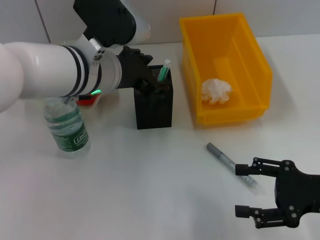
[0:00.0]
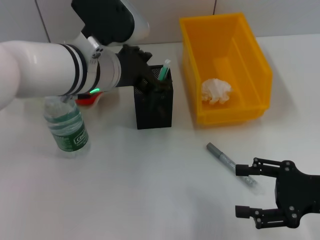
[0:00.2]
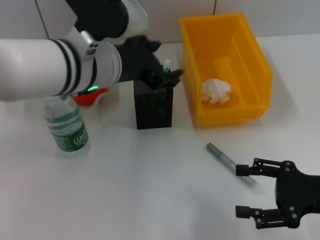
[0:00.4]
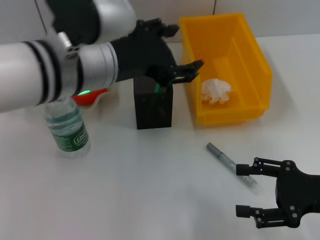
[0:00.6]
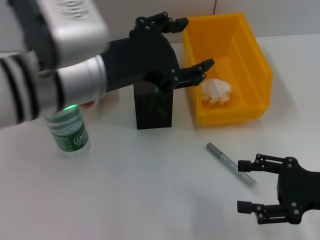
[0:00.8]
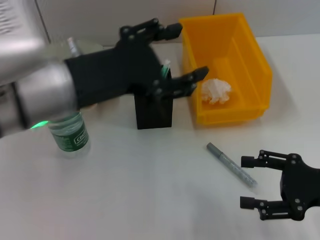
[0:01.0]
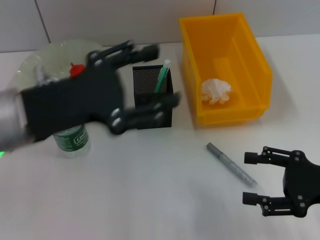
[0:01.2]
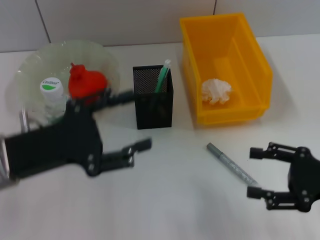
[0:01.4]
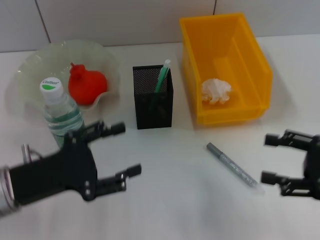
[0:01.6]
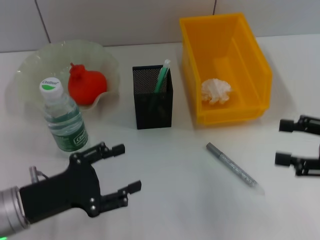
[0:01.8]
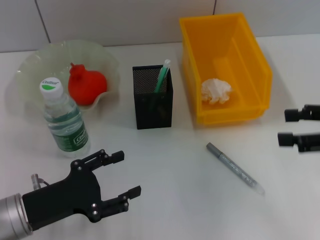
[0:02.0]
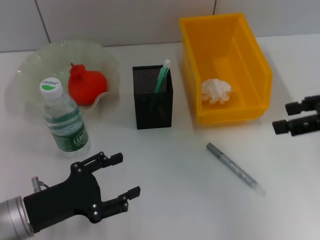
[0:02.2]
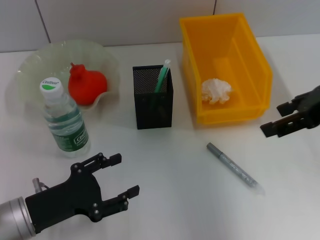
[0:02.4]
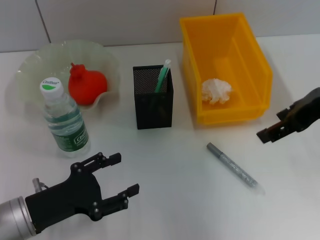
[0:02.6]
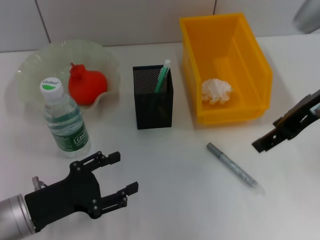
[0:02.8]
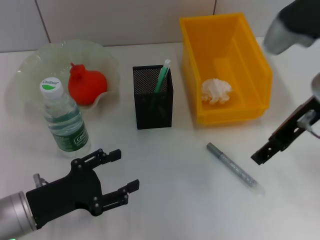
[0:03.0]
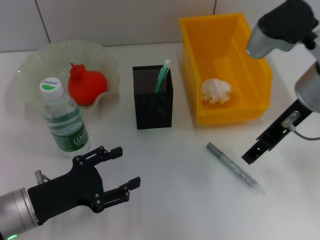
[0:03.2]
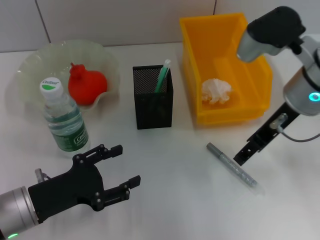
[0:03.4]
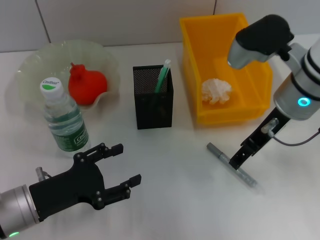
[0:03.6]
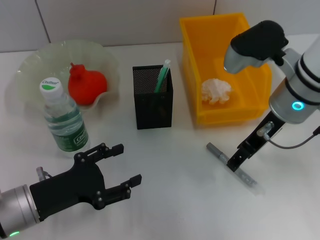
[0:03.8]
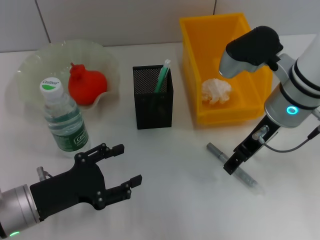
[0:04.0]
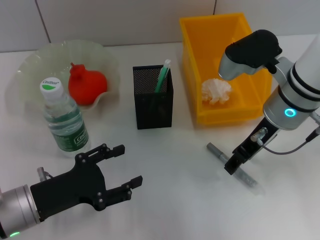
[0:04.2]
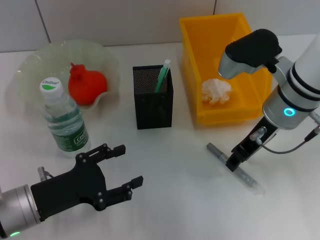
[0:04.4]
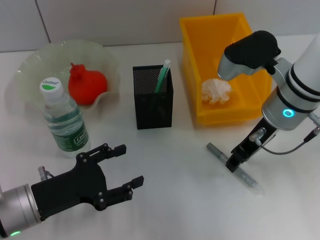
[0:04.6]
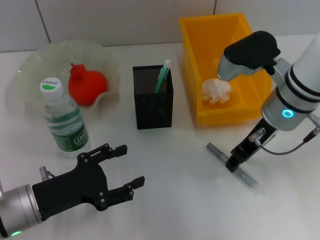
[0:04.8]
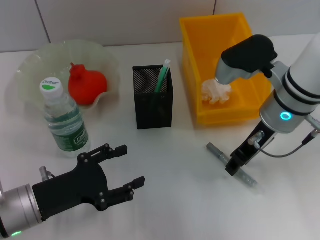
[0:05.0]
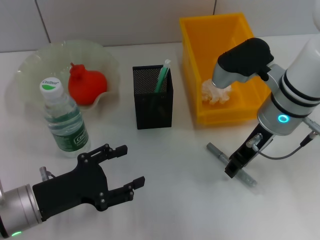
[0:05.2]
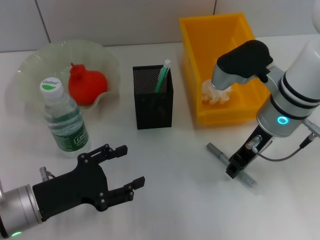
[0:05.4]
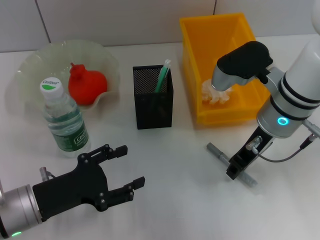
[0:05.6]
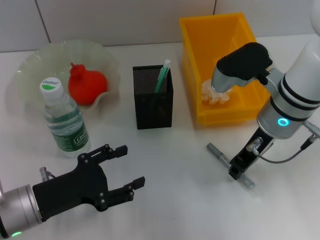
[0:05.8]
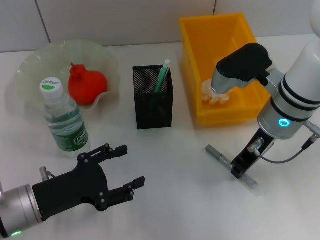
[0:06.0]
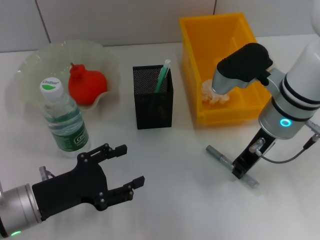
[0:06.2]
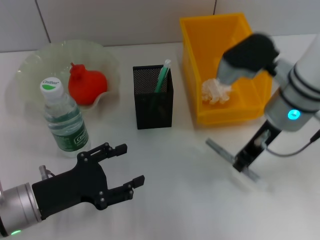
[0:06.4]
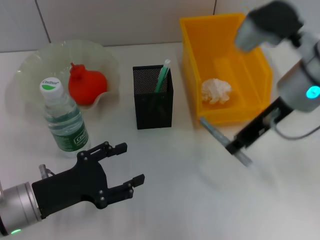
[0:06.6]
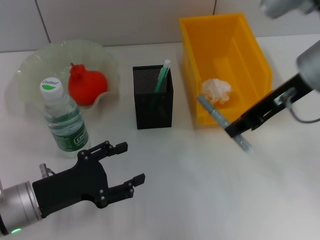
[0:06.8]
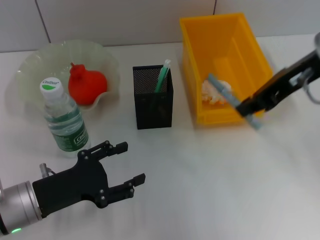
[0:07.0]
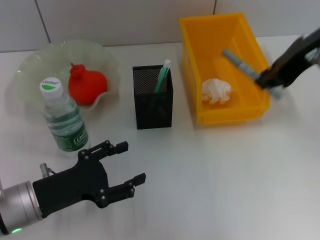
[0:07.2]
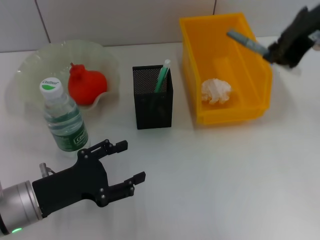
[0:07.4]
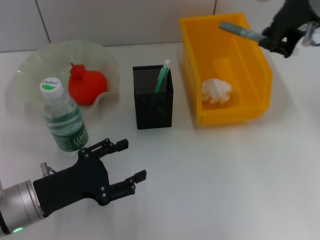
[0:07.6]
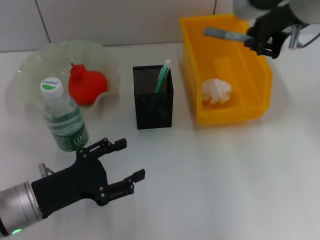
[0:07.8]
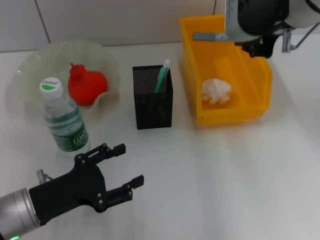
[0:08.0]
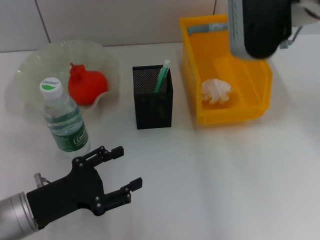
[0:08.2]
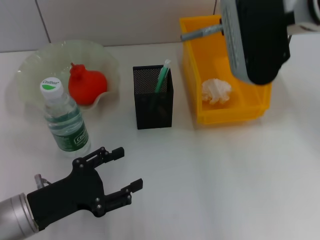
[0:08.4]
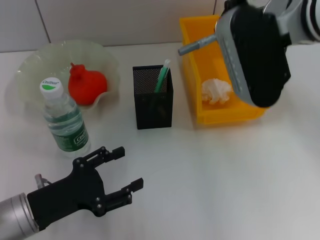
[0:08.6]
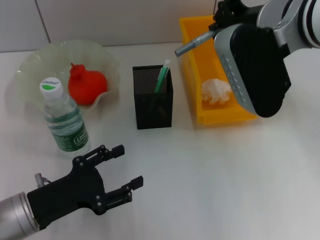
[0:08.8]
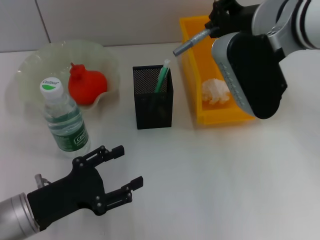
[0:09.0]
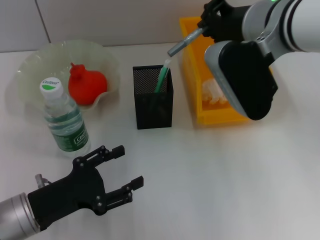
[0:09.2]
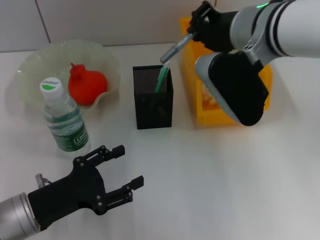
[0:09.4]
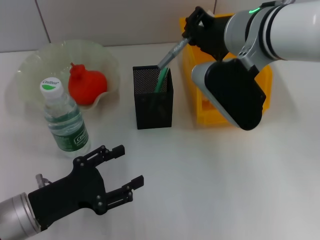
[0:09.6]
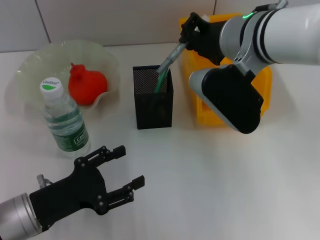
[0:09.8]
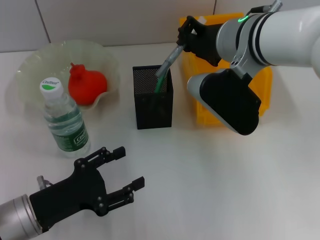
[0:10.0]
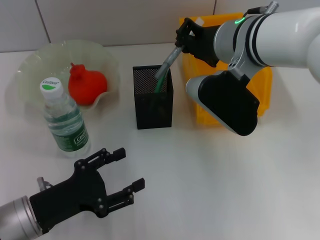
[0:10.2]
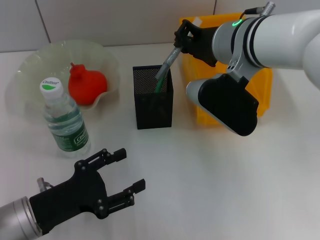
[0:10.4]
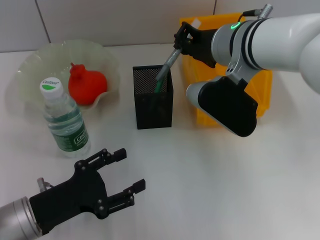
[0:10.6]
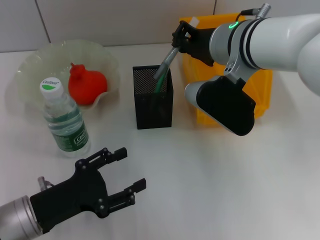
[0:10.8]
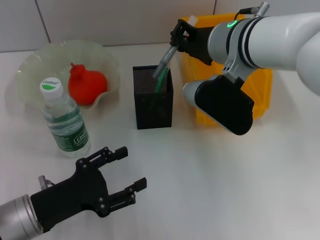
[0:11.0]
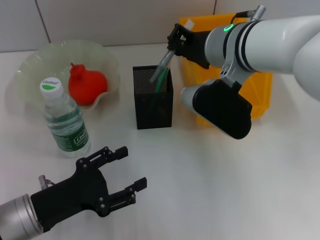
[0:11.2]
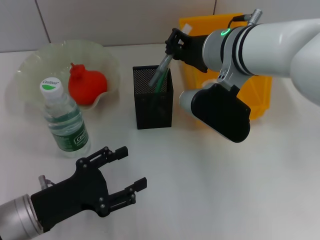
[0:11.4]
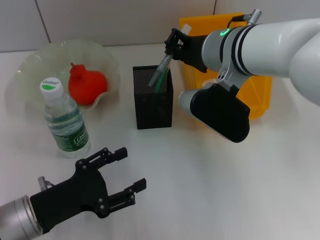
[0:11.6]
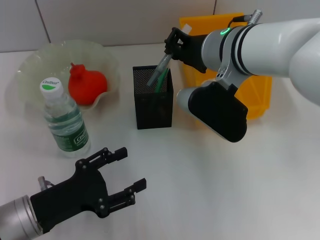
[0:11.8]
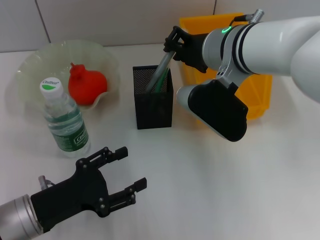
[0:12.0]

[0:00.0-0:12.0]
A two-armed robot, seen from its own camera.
Step, 0:00.2 to 0:06.0: Grab the gray glue with the right hand.
0:00.0 to 0:01.6: The left gripper goes about 20 cm to the left, backward and downward, and opens.
0:01.6 to 0:03.0: The right gripper travels to the left, upward and forward by approximately 20 cm; the left gripper heads downward, covering some 5 cm.
0:03.0 to 0:04.4: The right gripper shifts some 5 cm downward, and closes.
0:04.4 to 0:06.0: The right gripper closes up.
0:06.0 to 0:07.6: The right gripper is displaced upward by about 15 cm.
0:07.6 to 0:09.0: The right gripper is displaced downward by roughly 5 cm.
0:09.0 to 0:10.4: The right gripper moves approximately 5 cm.
0:10.4 to 0:12.0: Both grippers stay put.

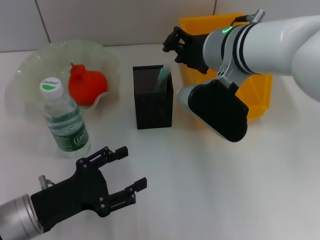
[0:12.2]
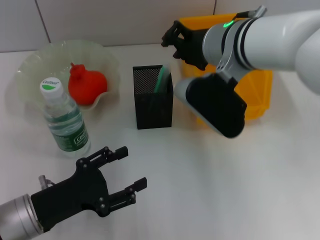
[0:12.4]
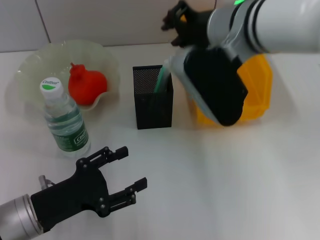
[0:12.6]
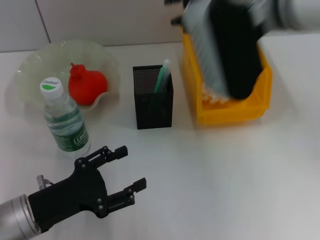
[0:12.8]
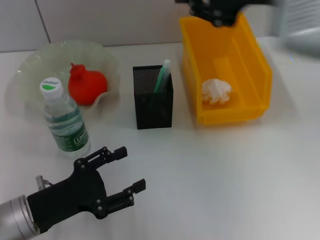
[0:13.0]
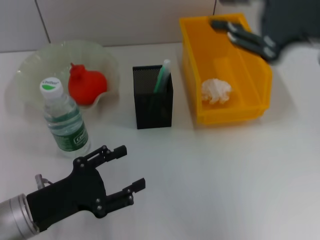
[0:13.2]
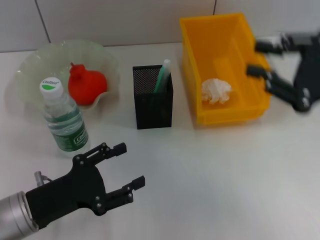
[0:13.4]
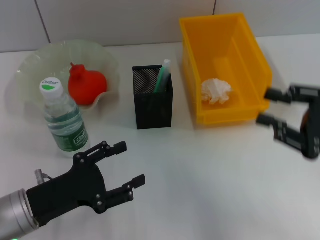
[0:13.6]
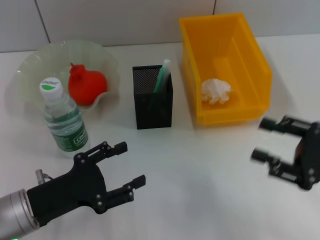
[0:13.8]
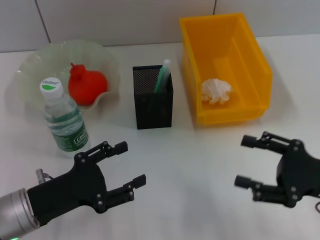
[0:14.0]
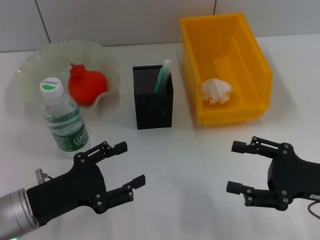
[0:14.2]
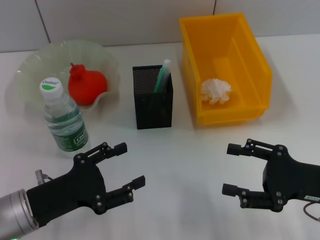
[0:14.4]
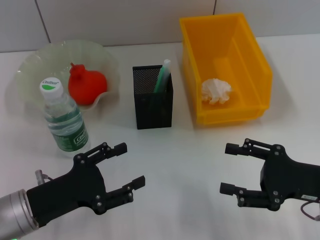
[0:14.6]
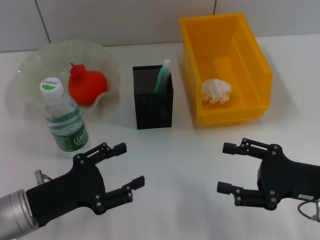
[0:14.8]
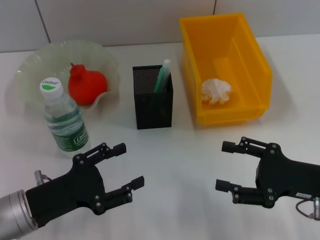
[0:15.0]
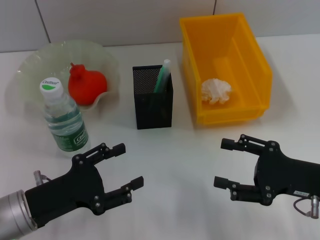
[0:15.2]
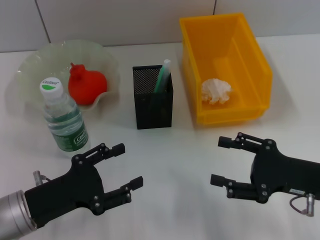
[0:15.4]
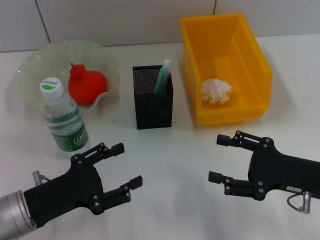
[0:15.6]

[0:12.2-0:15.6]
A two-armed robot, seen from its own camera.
0:12.2 to 0:13.8: The right gripper is displaced to the right, backward and downward by approximately 30 cm.
0:13.8 to 0:15.6: The right gripper ends up about 5 cm from where it was, and opens its fingers.
